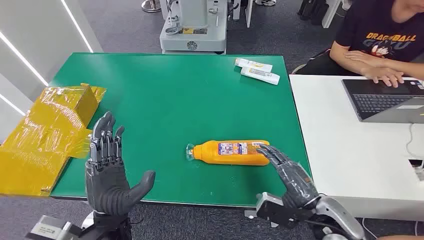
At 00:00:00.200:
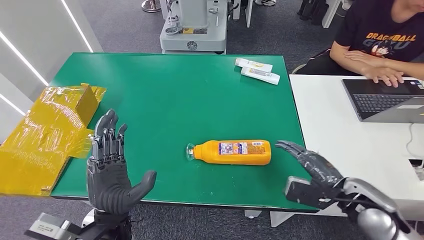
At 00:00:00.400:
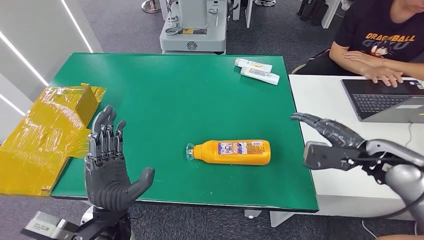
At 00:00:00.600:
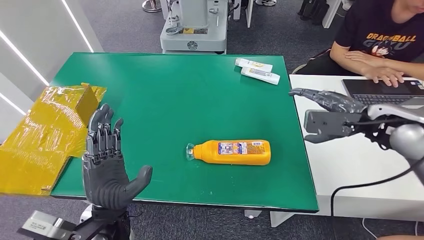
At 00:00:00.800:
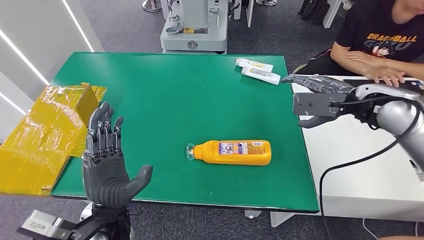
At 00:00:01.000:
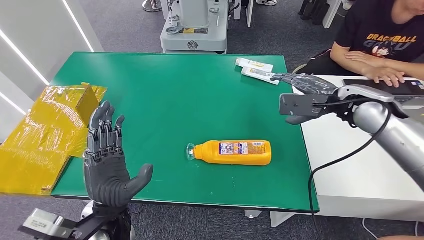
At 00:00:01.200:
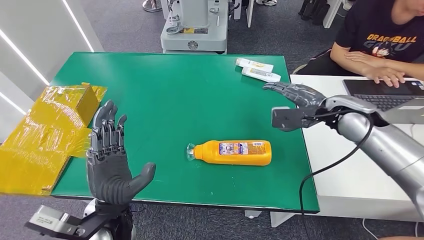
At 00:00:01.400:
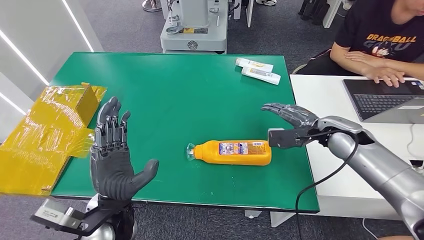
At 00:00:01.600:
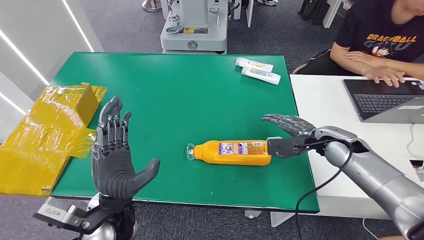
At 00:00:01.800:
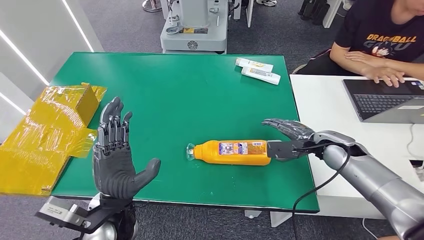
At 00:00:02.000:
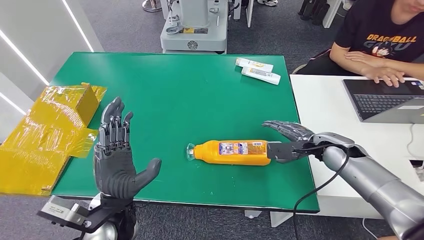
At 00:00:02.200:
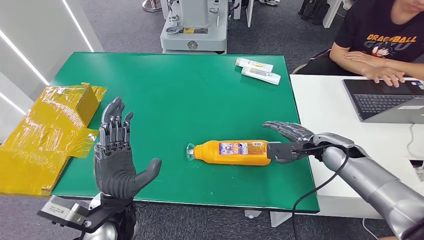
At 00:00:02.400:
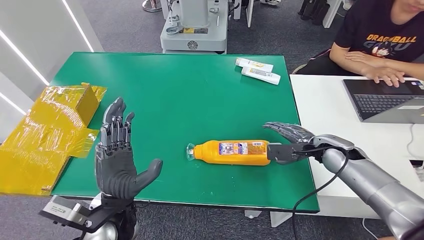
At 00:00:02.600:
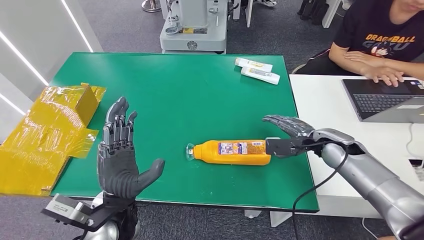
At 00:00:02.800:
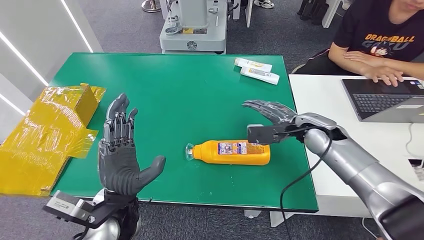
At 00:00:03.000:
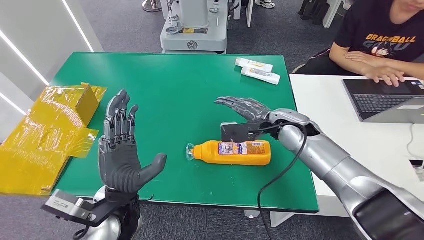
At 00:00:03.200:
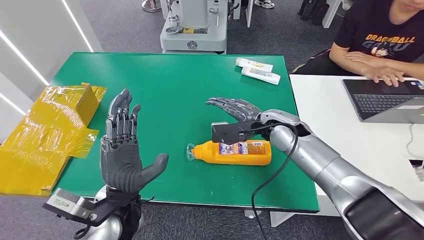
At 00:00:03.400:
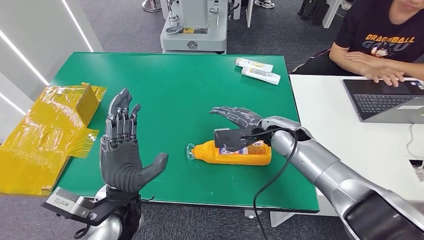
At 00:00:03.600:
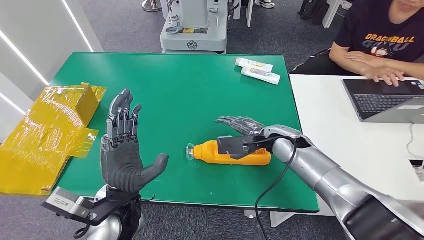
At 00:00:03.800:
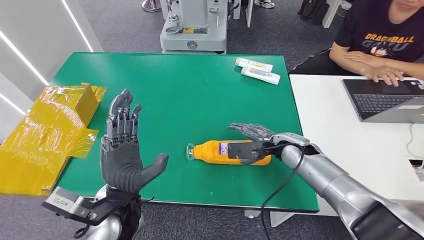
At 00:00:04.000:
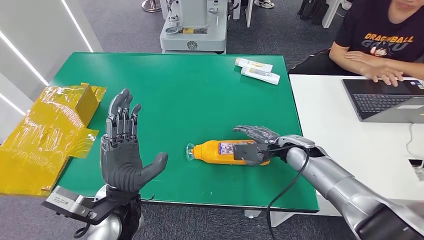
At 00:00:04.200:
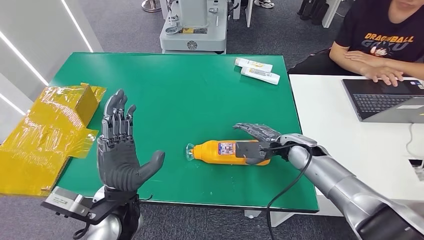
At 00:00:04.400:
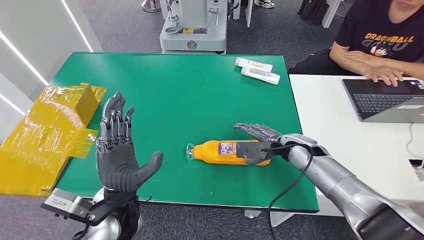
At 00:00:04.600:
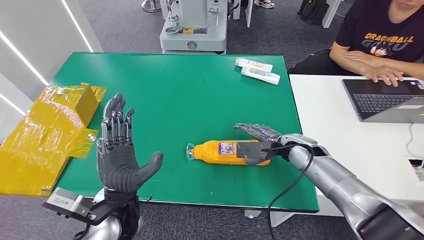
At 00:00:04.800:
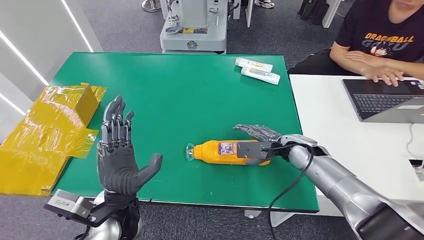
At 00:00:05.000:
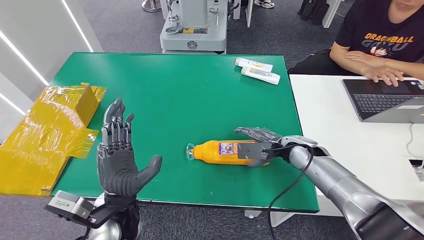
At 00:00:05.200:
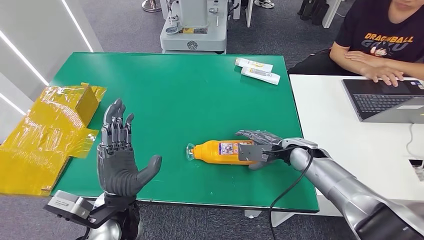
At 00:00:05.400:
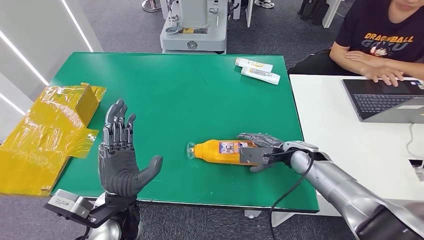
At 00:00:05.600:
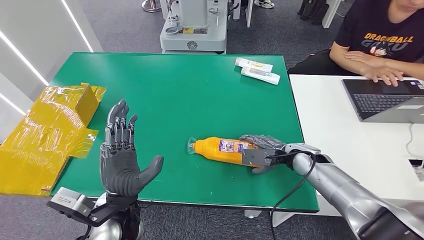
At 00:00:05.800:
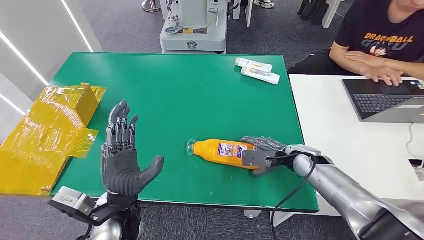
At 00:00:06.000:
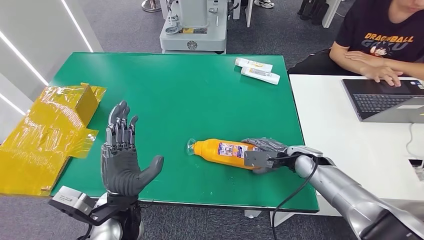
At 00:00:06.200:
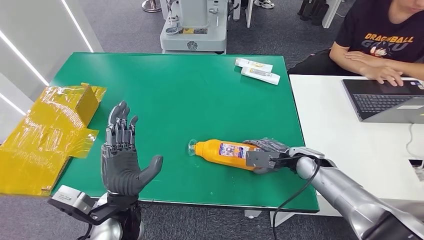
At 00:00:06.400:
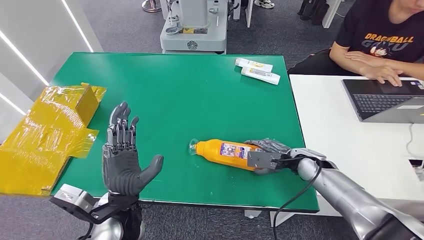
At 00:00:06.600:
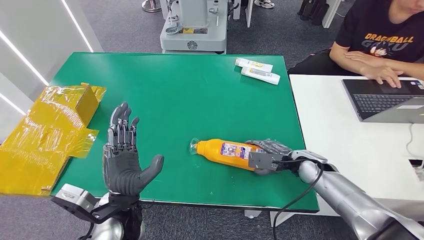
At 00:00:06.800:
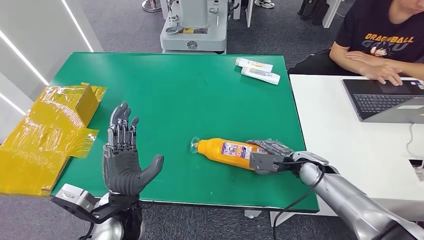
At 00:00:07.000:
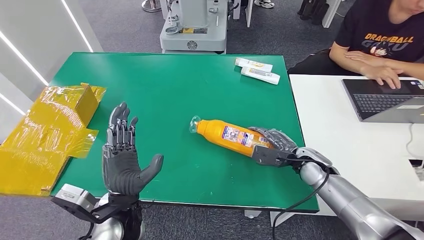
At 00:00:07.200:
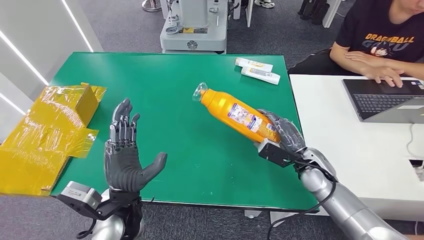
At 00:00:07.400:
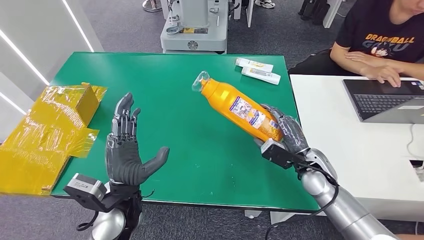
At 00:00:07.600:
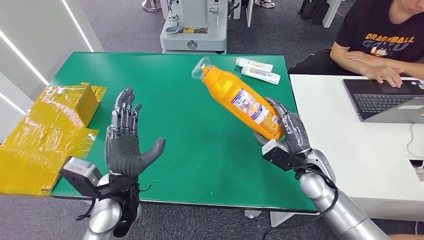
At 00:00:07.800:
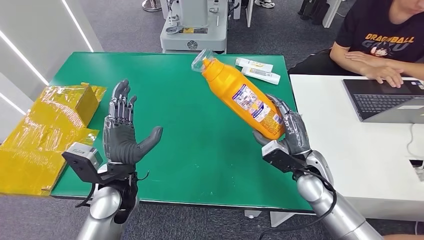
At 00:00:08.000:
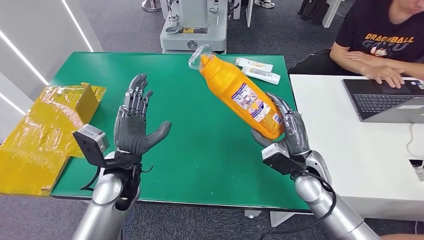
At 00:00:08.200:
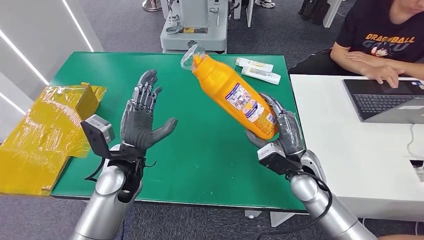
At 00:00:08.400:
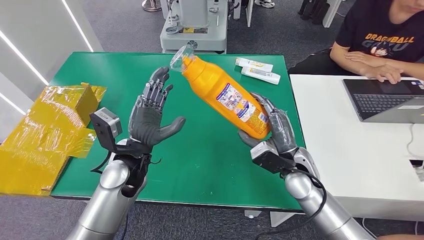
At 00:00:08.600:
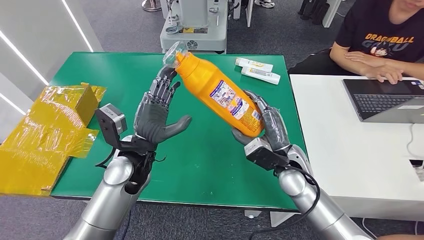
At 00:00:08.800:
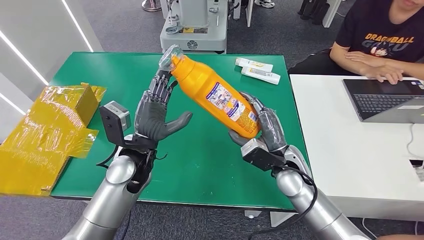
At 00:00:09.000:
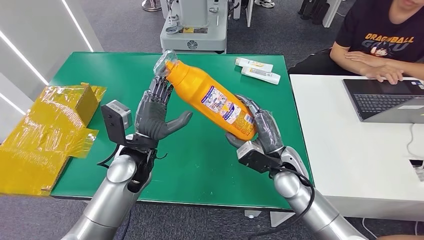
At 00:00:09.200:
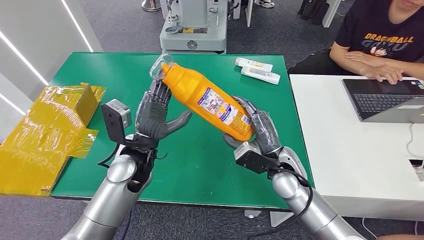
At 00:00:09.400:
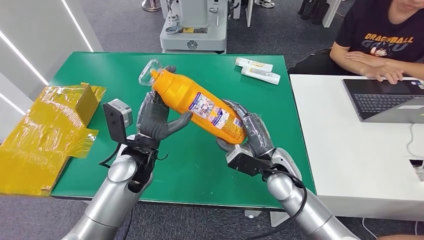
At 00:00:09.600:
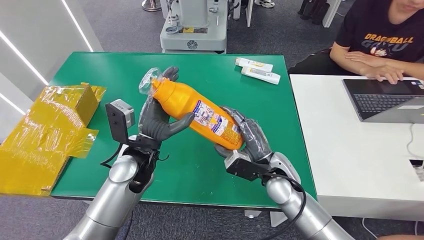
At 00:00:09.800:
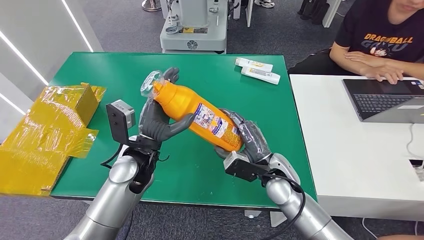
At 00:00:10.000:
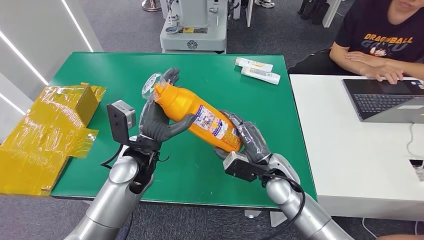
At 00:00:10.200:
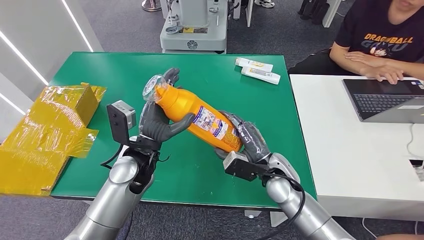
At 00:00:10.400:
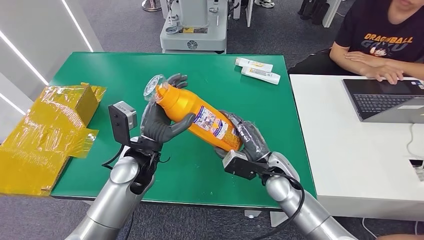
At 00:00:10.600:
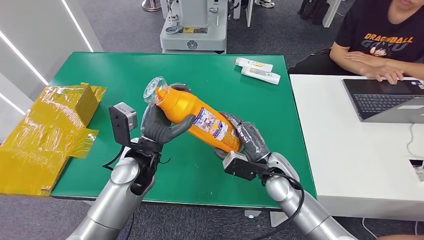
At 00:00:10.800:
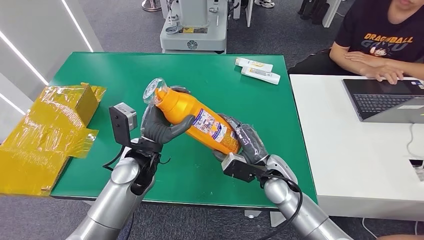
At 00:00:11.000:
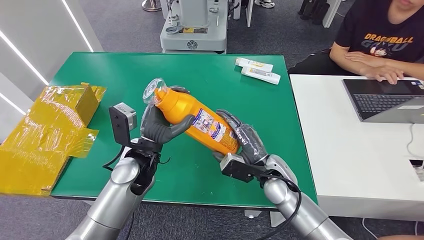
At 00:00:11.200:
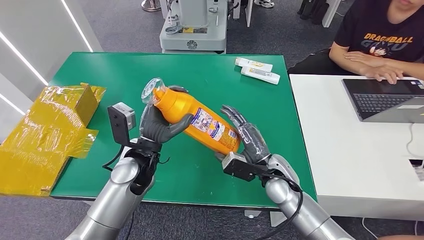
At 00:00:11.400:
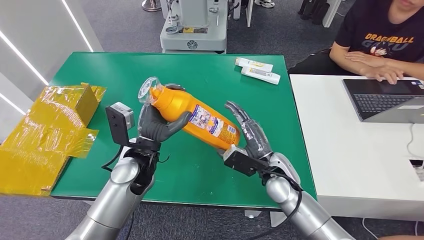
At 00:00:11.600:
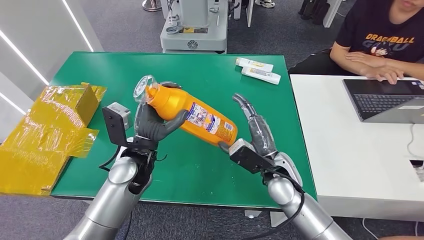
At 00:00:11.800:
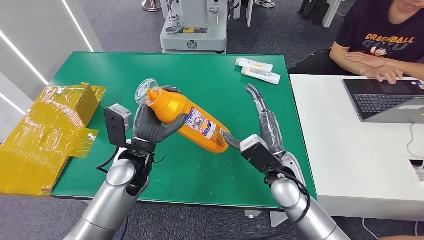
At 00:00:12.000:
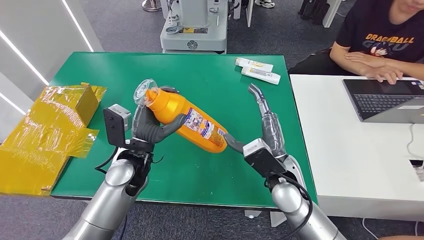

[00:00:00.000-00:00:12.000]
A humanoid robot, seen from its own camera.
Step, 00:00:00.000 to 00:00:07.400: Pick up the bottle from the table.
00:00:01.600 to 00:00:03.000: The right hand travels to the left by roughly 10 cm.
00:00:03.000 to 00:00:04.400: The right hand shifts some 10 cm downward.
00:00:04.400 to 00:00:06.000: There are only small adjustments of the hands.
00:00:06.000 to 00:00:07.600: The right hand is displaced backward by about 5 cm.
00:00:07.600 to 00:00:09.000: The left hand goes about 10 cm forward. The right hand moves to the left, about 10 cm.
00:00:09.000 to 00:00:10.400: The hands move only a little.

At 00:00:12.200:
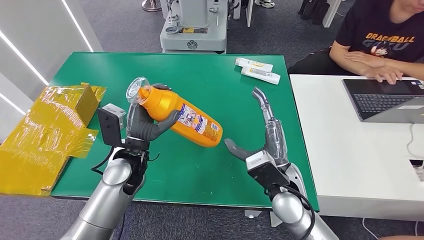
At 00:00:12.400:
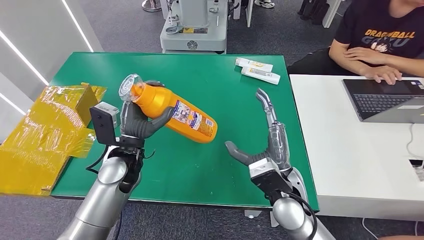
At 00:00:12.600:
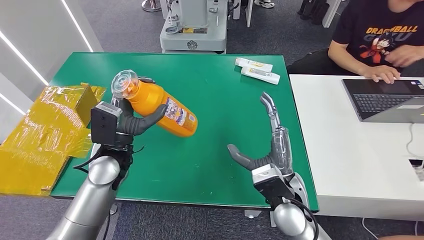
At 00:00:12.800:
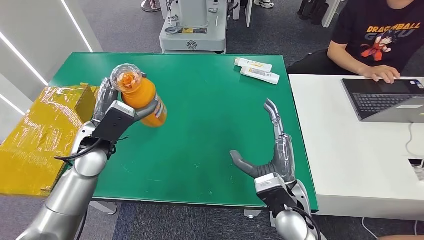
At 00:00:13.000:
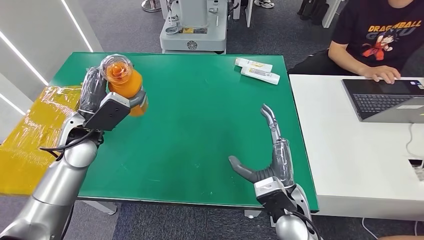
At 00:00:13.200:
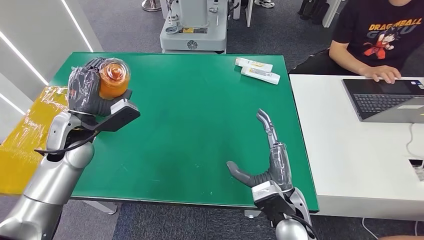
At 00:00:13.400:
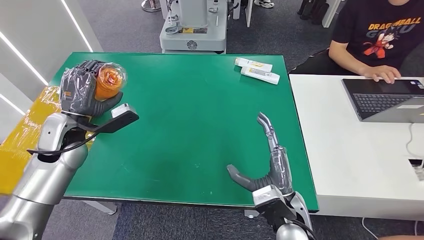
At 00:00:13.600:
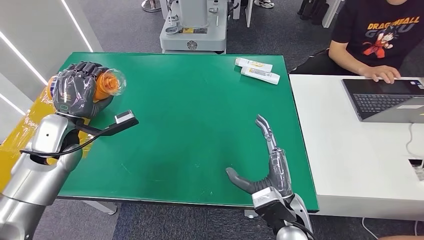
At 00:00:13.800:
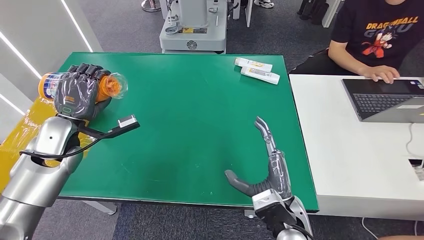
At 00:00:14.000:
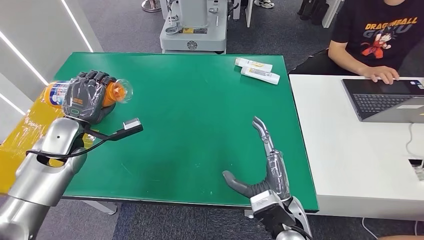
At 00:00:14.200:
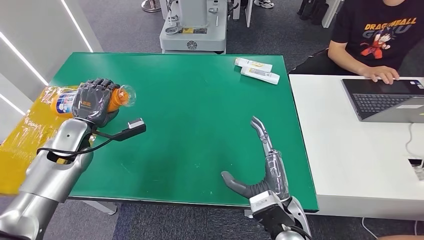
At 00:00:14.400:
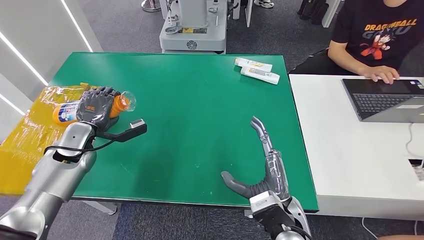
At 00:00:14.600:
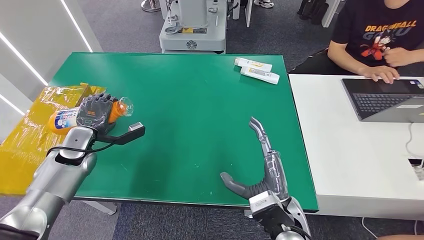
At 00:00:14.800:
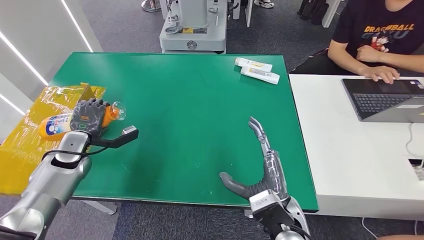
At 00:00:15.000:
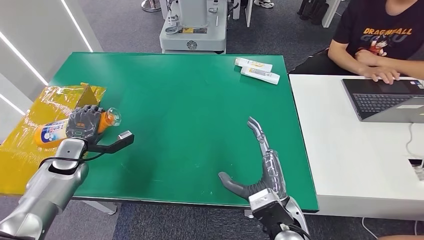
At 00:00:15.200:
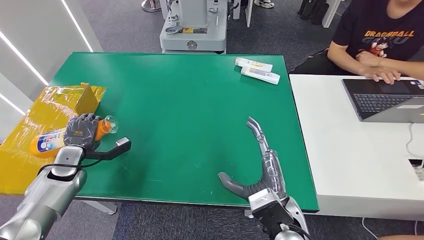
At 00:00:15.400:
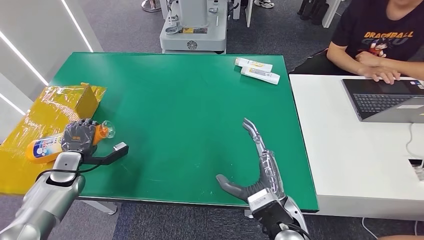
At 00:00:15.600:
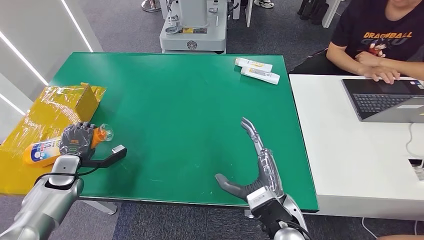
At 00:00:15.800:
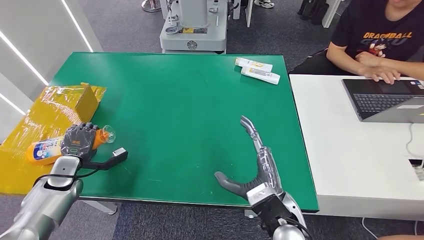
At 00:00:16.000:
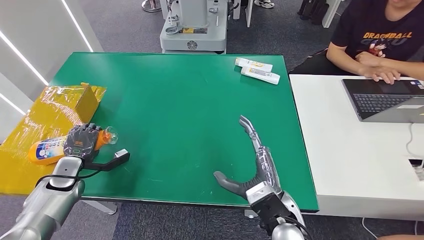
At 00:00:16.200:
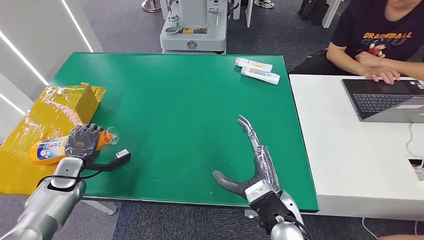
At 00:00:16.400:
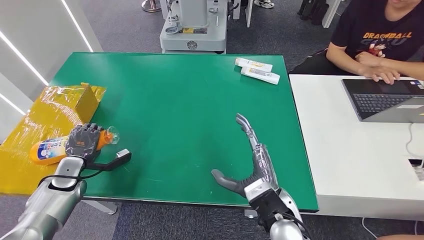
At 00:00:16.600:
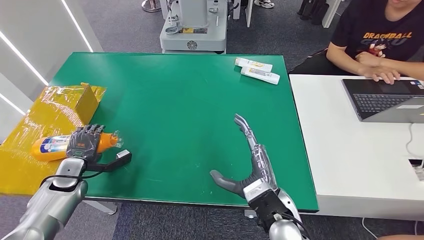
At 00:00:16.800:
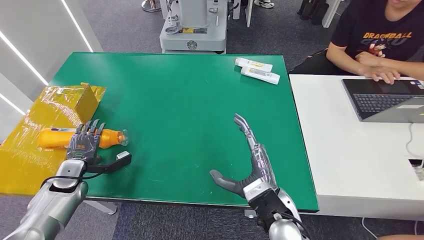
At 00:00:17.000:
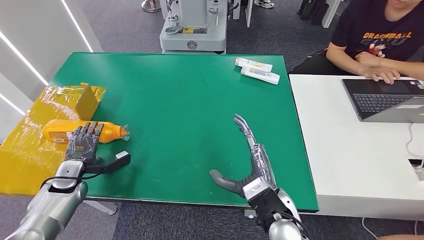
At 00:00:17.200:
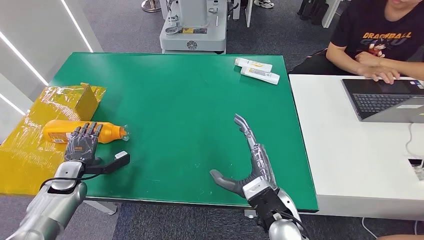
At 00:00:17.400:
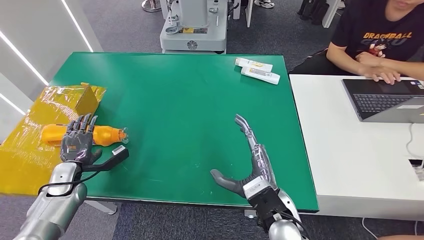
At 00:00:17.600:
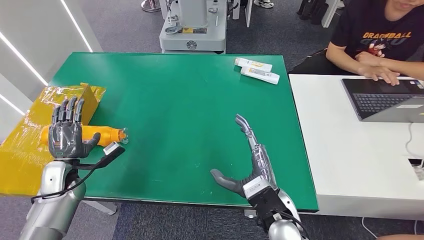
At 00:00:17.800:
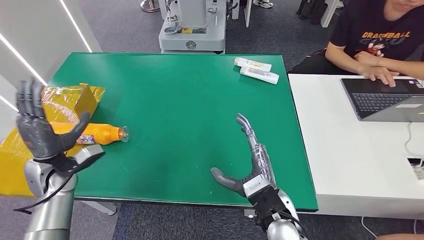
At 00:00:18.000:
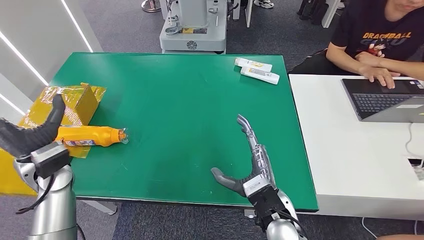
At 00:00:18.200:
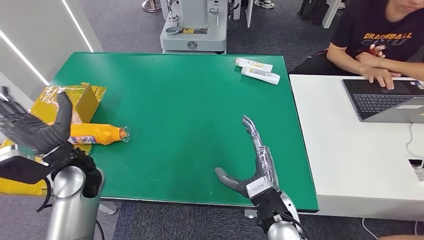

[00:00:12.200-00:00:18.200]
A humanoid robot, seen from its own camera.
Step, 00:00:12.200 to 00:00:18.200: Turn the bottle to the front side.
00:00:13.800 to 00:00:15.200: The left hand shifts some 15 cm downward.
00:00:15.200 to 00:00:16.600: The hands stay close to where they were, moving slightly.
00:00:16.600 to 00:00:18.200: The left hand shifts roughly 20 cm upward and to the right.
